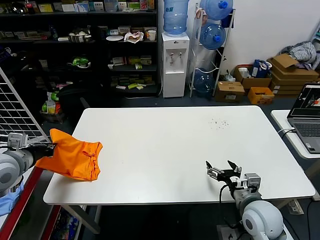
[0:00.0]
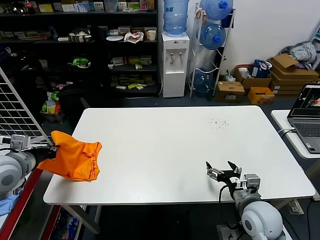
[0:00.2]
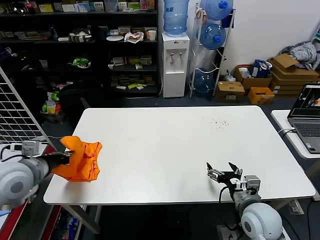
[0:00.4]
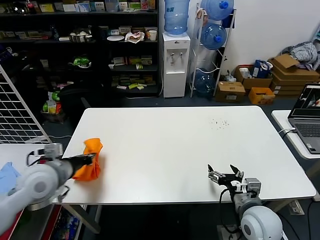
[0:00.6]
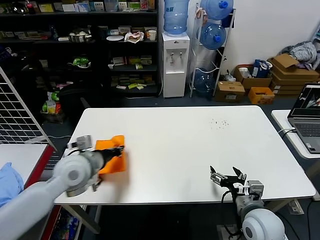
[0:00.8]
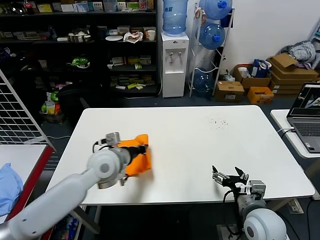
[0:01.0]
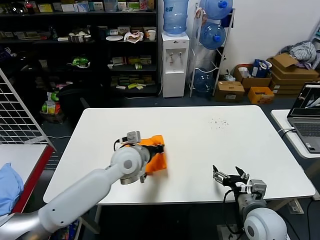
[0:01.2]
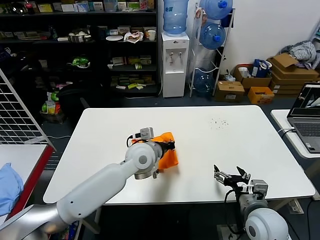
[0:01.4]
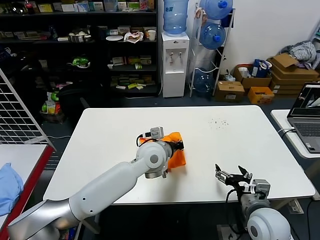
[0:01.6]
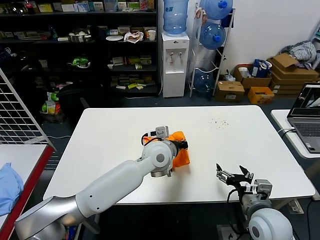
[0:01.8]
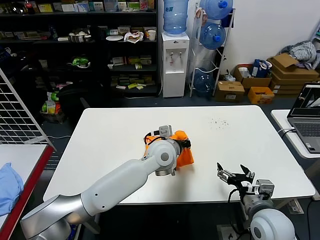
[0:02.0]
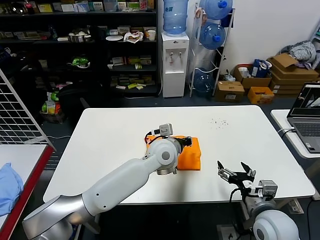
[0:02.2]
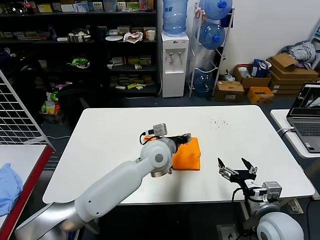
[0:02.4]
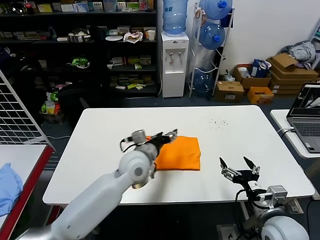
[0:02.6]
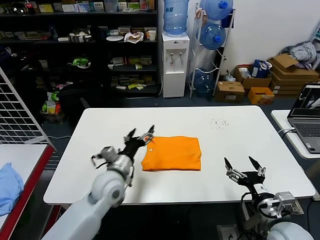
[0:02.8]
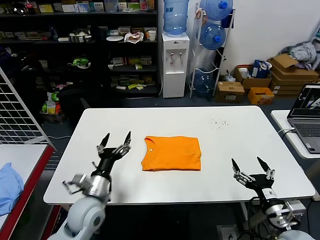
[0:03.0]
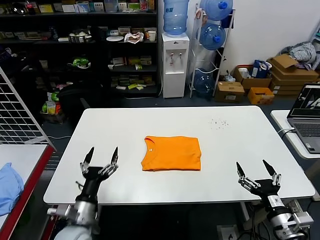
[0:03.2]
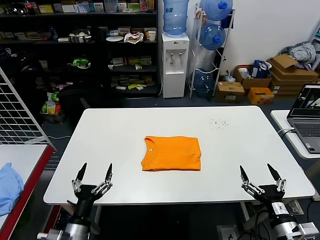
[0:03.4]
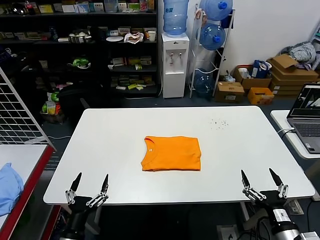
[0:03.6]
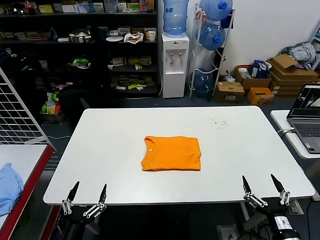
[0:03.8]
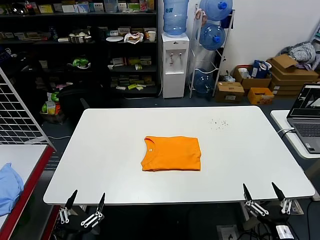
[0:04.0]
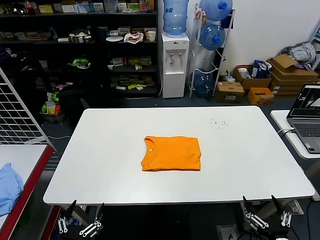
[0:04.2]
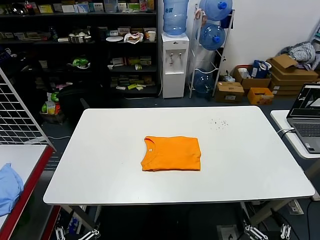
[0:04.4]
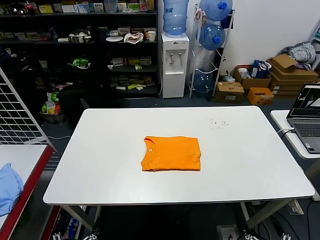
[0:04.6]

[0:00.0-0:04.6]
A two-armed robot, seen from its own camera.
Task of the whole recording: fold and organize the clothes.
Step, 0:00.0 to 0:02.2: Flip the folded clothes over with left gripper.
0:00.0 to 0:01.6: The left gripper is displaced to the right by about 40 cm.
0:01.6 to 0:03.0: The left gripper travels to the left, backward and downward by some 20 cm, and opens. The right gripper travels backward by roughly 5 cm.
0:03.0 to 0:04.6: The left gripper shifts some 30 cm backward; the right gripper moves backward, approximately 15 cm.

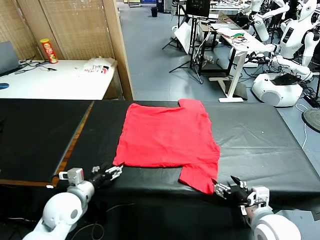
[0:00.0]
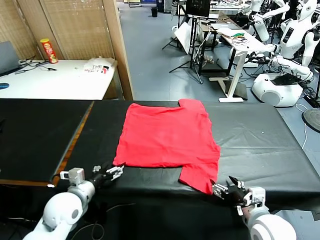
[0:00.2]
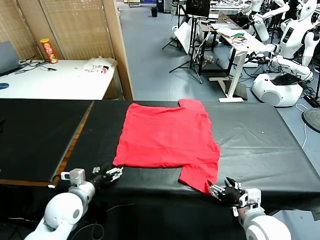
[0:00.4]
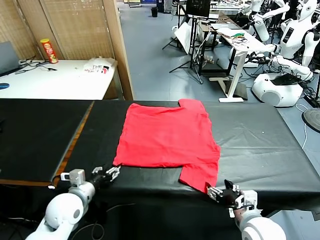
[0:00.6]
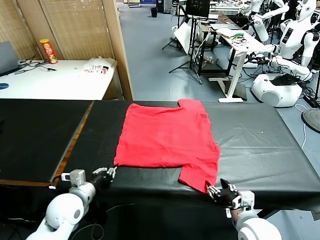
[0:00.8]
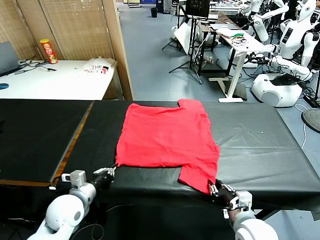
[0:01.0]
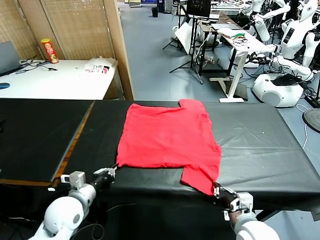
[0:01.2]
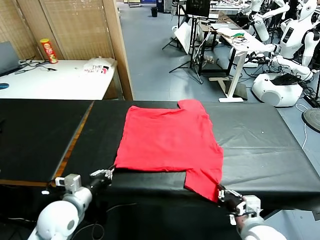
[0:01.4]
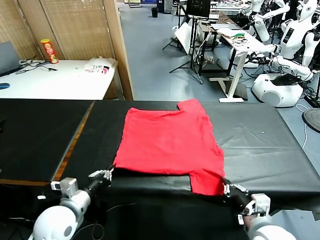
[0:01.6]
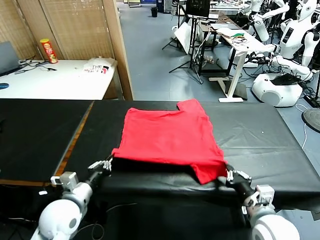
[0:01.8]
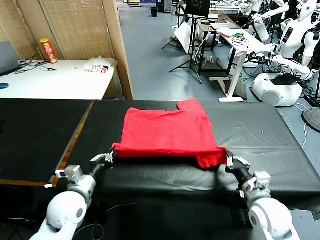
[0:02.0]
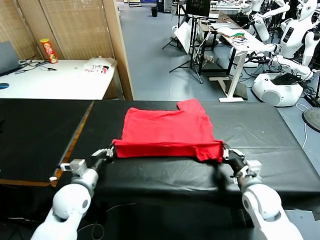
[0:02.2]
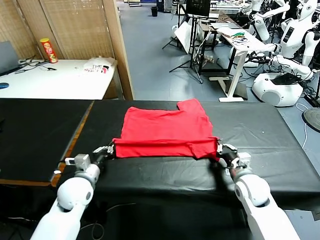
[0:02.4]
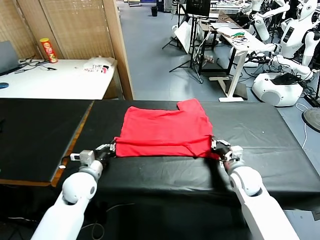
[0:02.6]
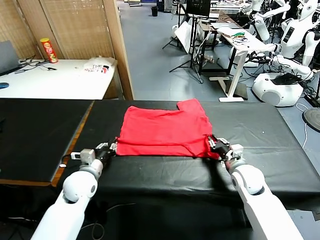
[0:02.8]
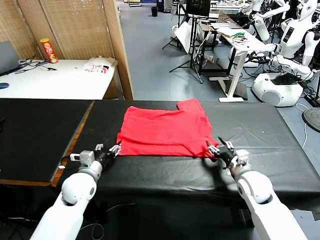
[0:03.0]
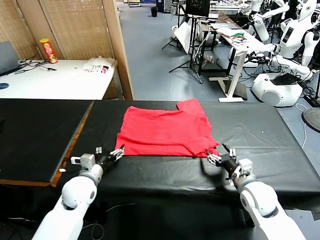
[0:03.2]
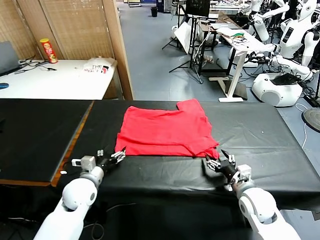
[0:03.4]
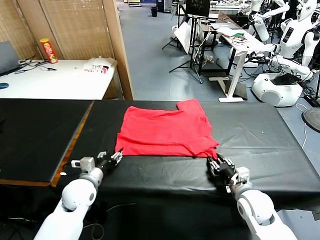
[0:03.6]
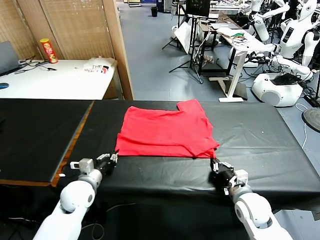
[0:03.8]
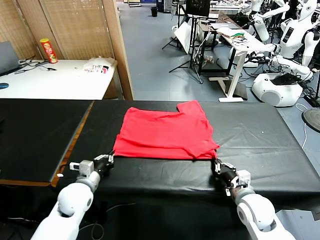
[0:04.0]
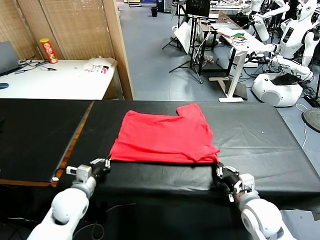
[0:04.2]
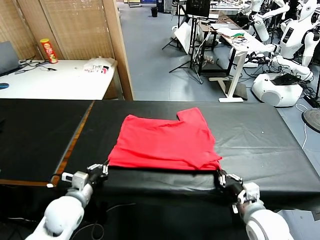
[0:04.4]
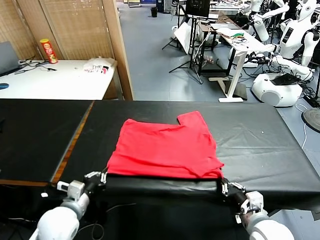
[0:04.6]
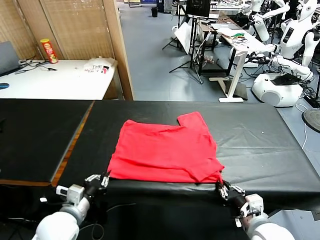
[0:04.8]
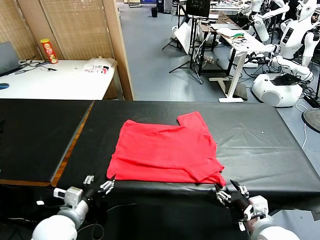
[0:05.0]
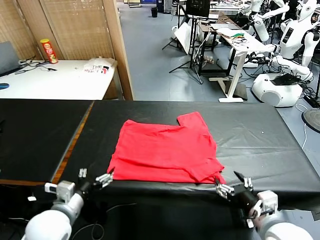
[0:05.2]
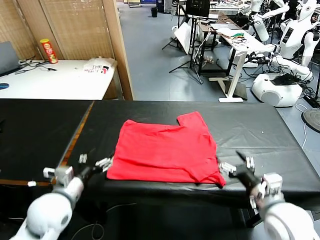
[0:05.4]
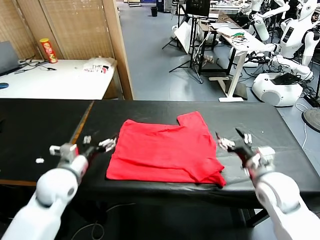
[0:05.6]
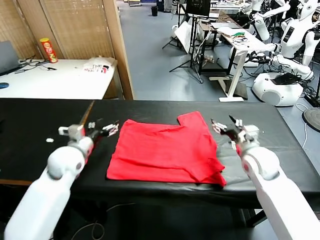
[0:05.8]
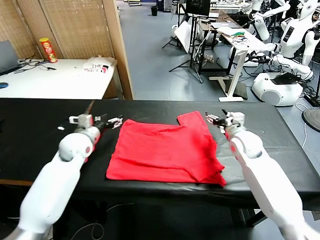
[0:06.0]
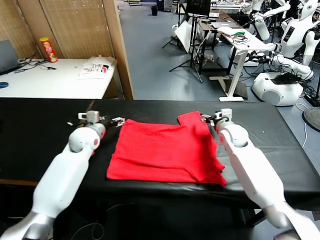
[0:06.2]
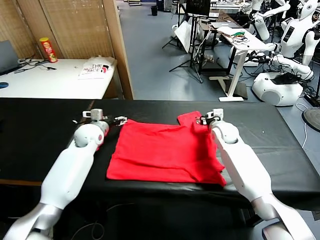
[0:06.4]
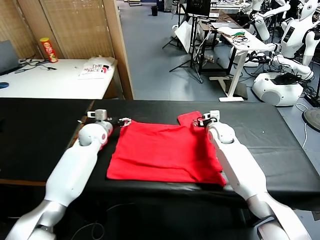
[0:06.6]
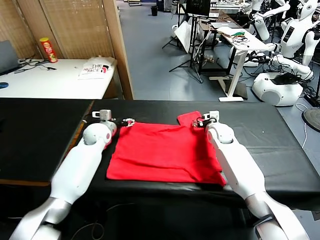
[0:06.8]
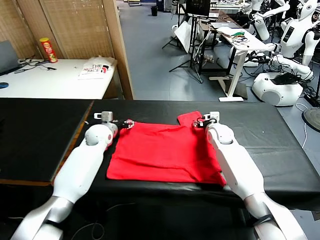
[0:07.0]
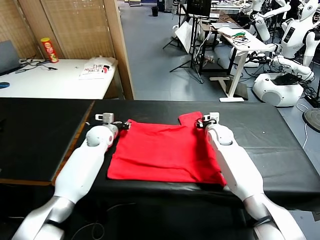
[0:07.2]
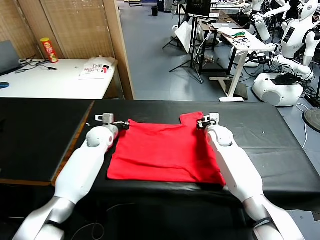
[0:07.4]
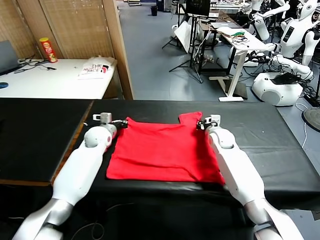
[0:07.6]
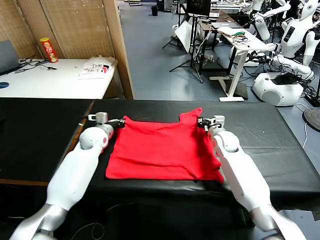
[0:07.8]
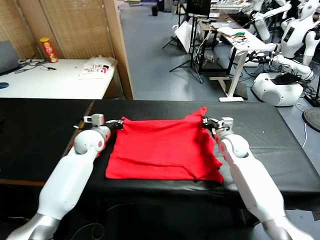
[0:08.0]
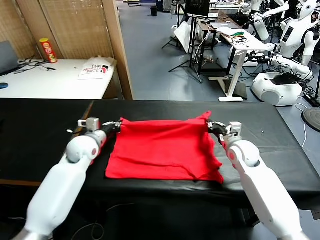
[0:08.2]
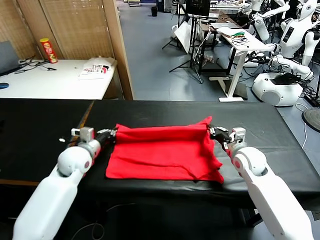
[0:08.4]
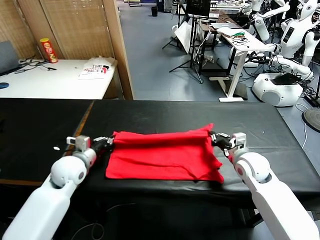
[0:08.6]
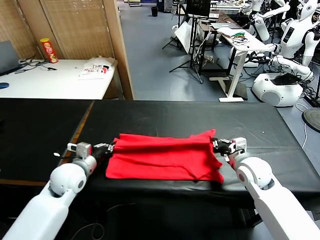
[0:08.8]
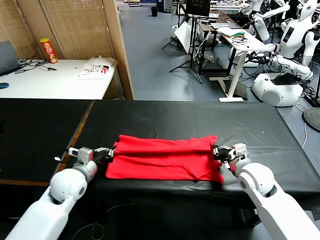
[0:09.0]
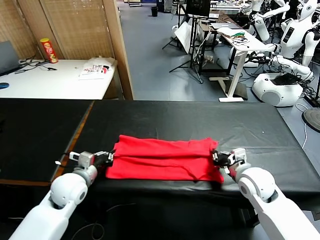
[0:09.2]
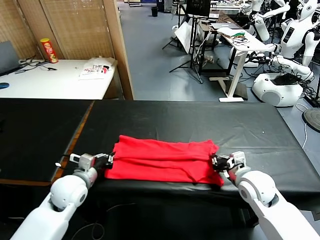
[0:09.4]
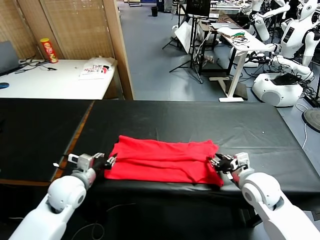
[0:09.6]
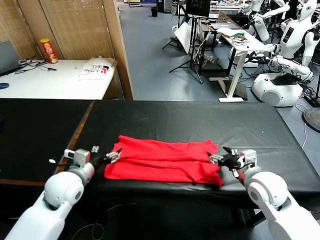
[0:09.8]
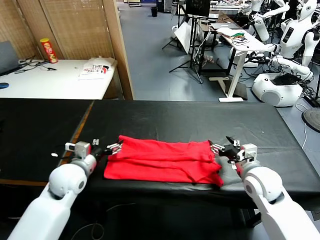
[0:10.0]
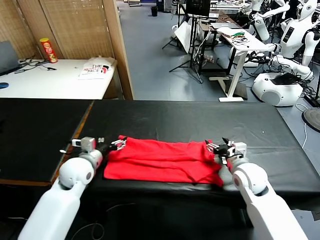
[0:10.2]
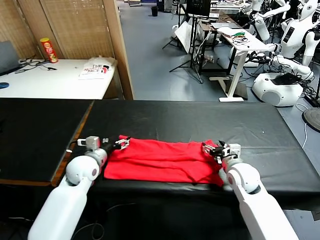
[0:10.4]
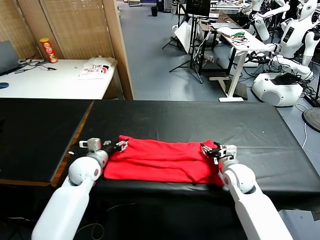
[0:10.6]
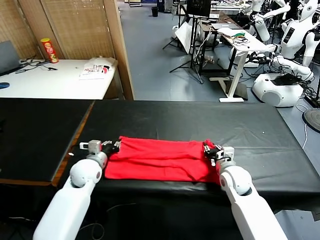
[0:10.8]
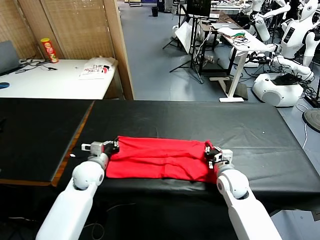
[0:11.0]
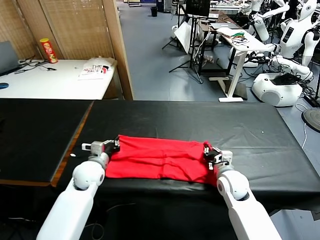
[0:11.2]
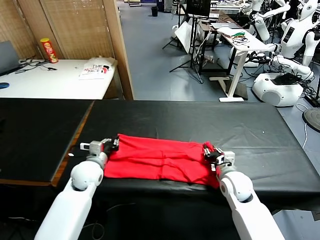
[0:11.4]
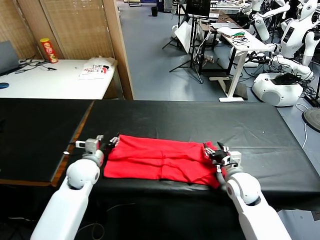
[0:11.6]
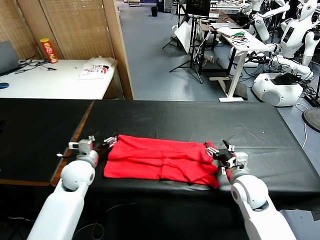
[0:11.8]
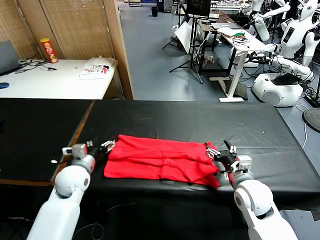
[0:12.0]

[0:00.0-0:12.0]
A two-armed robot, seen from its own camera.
Task of the whole recording: fold and organize the clothes.
Step, 0:00.0 to 0:01.2: use both grippers simultaneously to clamp the lower edge of the clothing fabric.
Step, 0:01.4 to 0:03.0: use both grippers to drag the lower edge of the fabric forward and fold it over the upper edge.
Step, 0:03.2 to 0:05.0: Drag the clothes downward with both gripper.
Step, 0:05.2 to 0:07.4: use both grippers simultaneously to clamp the upper edge of the clothing fabric.
Step, 0:07.6 to 0:09.8: use both grippers to drag the upper edge of the fabric backward and fold it over the lower edge.
0:01.6 to 0:03.0: The right gripper moves forward, approximately 5 cm, and opens up; the left gripper heads forward, covering roughly 10 cm, and opens its fingers.
0:03.0 to 0:04.4: Both grippers move backward, about 10 cm. The right gripper closes its fingers. The left gripper closes its fingers.
0:04.4 to 0:06.0: Both grippers move forward, roughly 30 cm. The right gripper opens. Meanwhile the left gripper opens.
0:06.0 to 0:07.6: The right gripper closes its fingers. The left gripper goes approximately 5 cm forward, and closes up.
0:07.6 to 0:09.0: The two grippers go approximately 20 cm backward.
0:09.0 to 0:10.4: The left gripper goes approximately 5 cm forward, and opens up, while the right gripper shifts about 5 cm downward, and opens.
0:10.4 to 0:12.0: The left gripper closes, then reopens. Meanwhile the right gripper heads backward and upward, covering about 10 cm, and closes, then opens again.

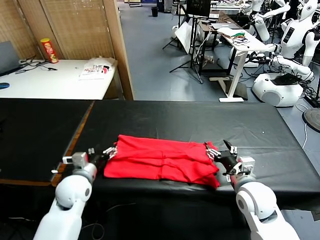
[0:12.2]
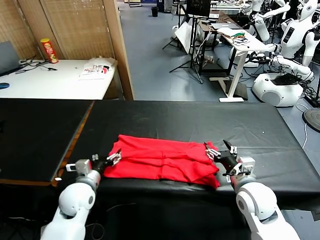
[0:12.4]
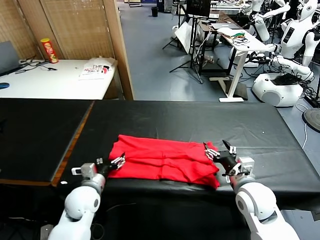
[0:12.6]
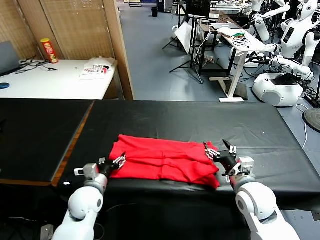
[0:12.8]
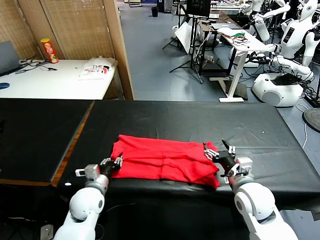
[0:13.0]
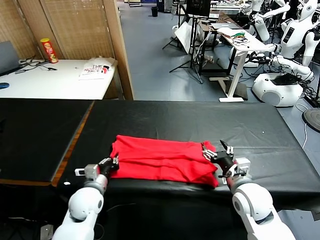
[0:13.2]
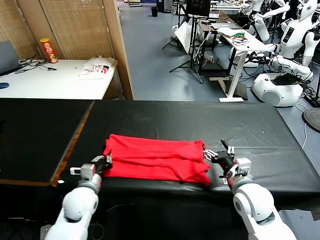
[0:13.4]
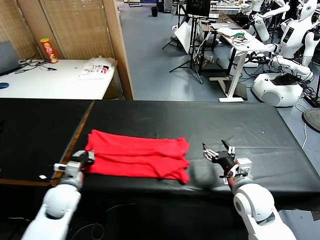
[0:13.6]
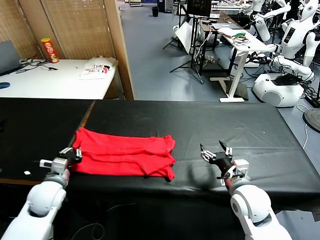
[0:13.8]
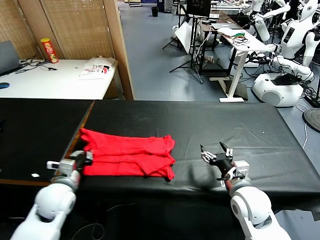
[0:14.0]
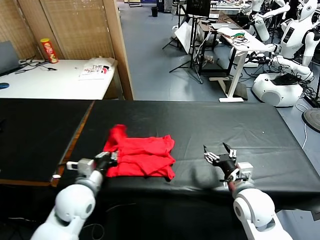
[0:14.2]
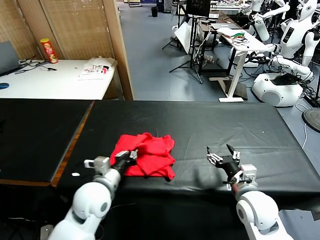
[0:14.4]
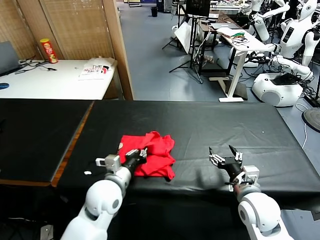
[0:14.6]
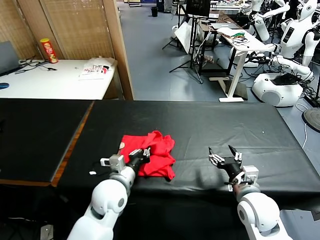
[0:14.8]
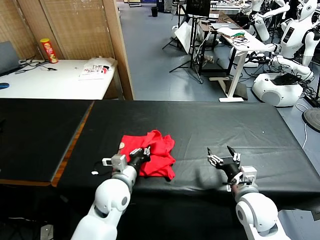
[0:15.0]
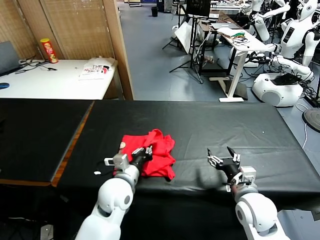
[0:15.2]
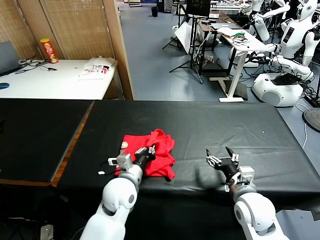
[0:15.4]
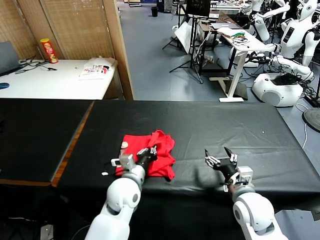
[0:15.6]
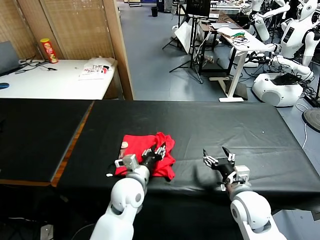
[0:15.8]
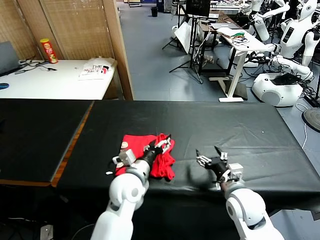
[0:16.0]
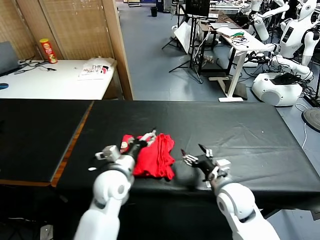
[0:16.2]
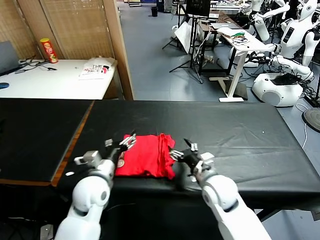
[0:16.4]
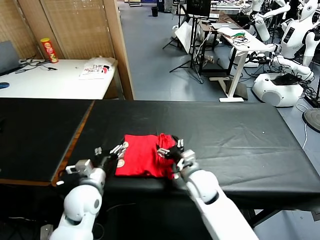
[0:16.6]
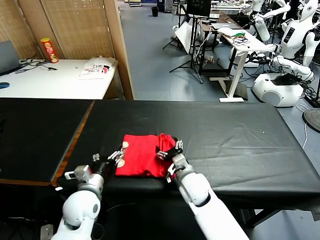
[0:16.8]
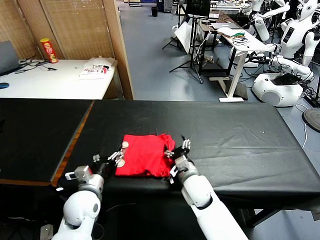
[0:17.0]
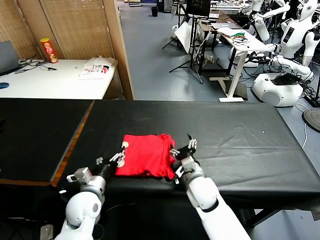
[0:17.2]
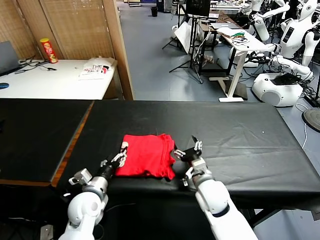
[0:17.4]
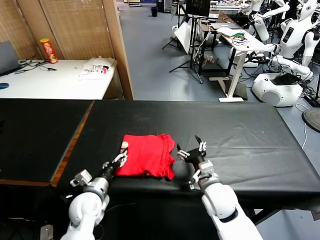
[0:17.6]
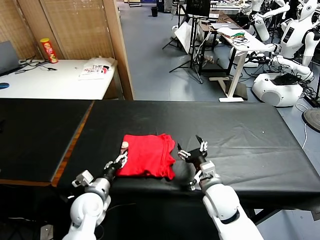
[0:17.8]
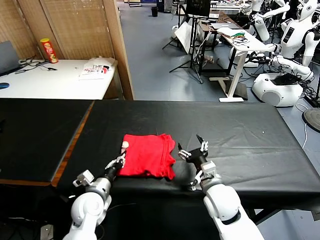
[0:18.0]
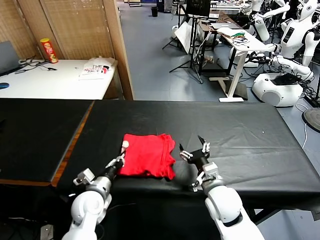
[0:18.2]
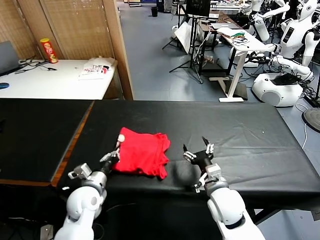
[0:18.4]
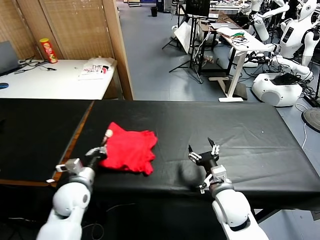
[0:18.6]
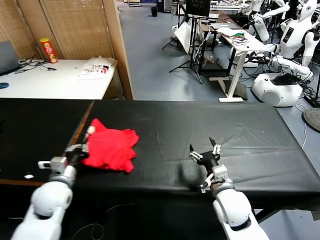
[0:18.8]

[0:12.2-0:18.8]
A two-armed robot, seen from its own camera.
Task of the whole recording: fold and organize the clothes.
Step, 0:13.4 to 0:16.0: use the left gripper to drag the left edge of the fabric to the left and folds it over the right edge.
0:12.2 to 0:13.8: The left gripper moves to the left, about 10 cm, and closes.
0:13.8 to 0:15.4: The left gripper is displaced to the right by about 25 cm.
0:15.4 to 0:17.2: The right gripper moves to the left and forward, approximately 15 cm. The left gripper goes roughly 10 cm to the left, and opens its fingers.
0:17.2 to 0:18.8: The left gripper goes about 10 cm to the left, and closes up, while the right gripper moves to the right and backward, approximately 10 cm.
